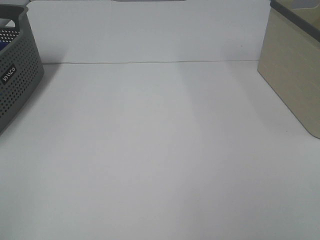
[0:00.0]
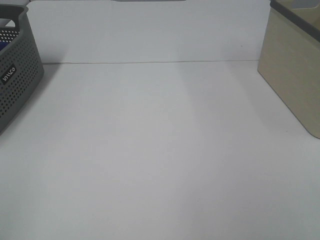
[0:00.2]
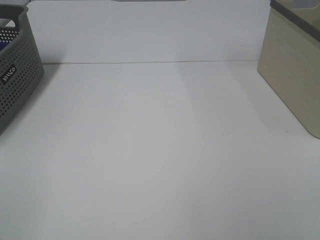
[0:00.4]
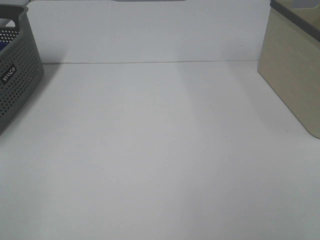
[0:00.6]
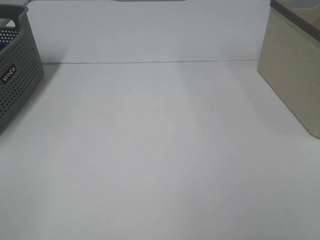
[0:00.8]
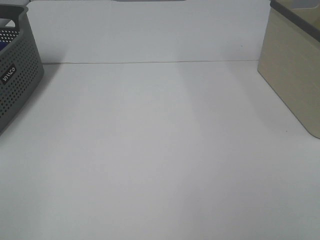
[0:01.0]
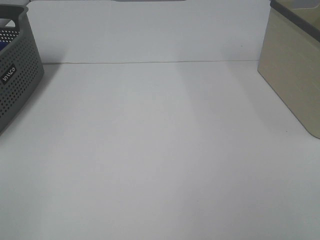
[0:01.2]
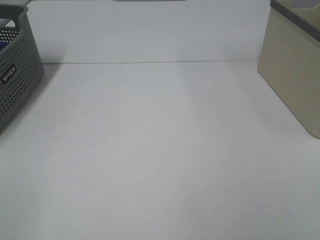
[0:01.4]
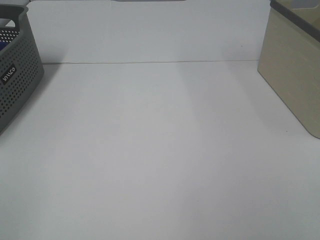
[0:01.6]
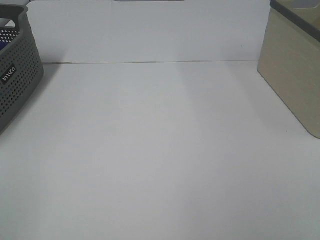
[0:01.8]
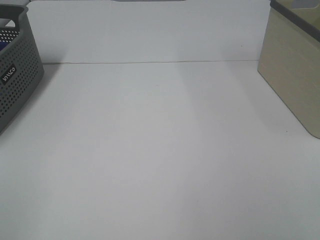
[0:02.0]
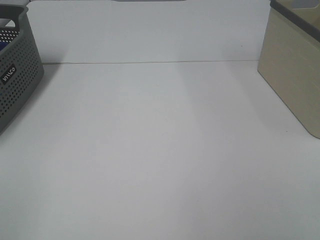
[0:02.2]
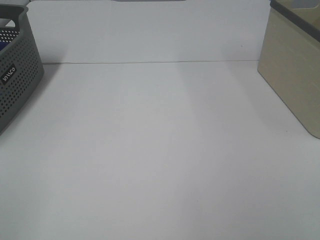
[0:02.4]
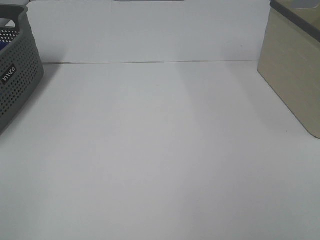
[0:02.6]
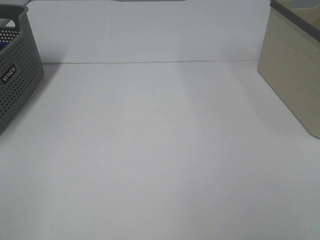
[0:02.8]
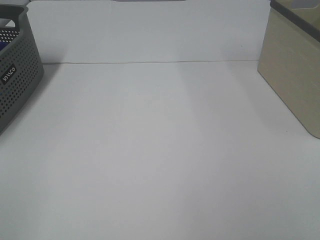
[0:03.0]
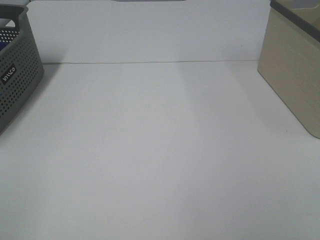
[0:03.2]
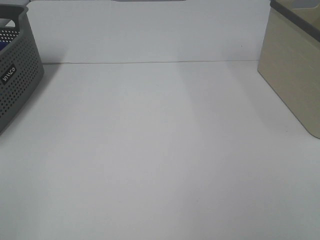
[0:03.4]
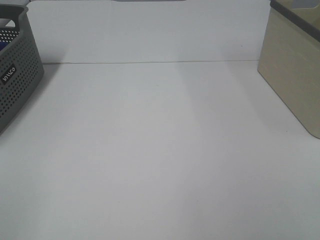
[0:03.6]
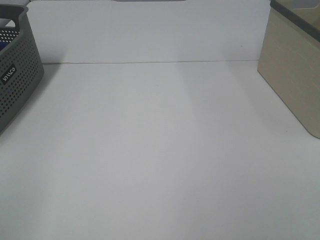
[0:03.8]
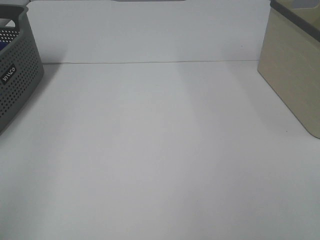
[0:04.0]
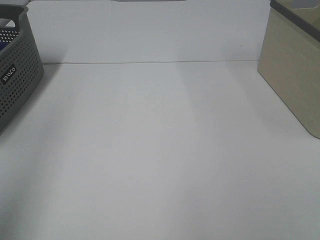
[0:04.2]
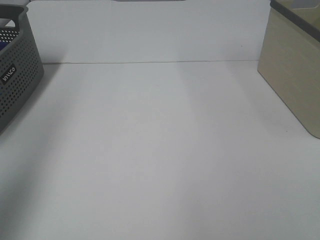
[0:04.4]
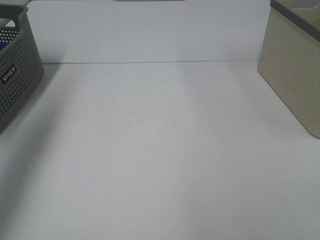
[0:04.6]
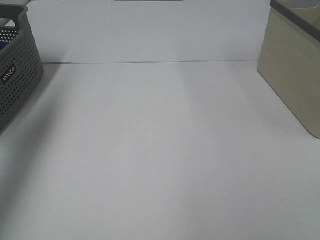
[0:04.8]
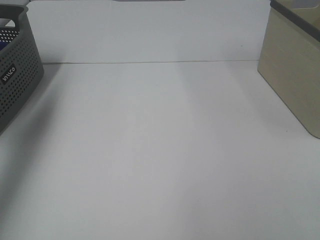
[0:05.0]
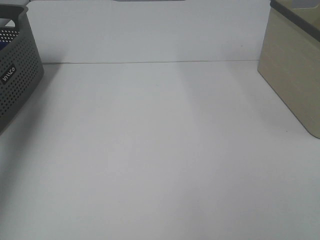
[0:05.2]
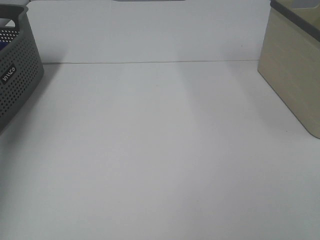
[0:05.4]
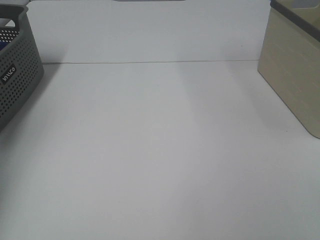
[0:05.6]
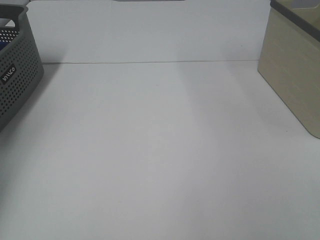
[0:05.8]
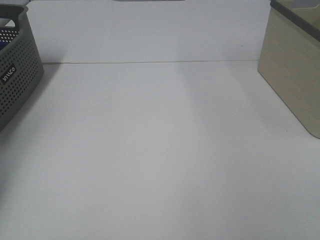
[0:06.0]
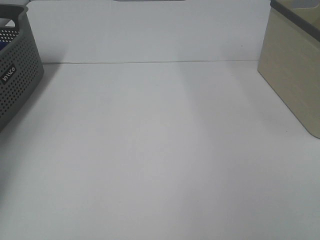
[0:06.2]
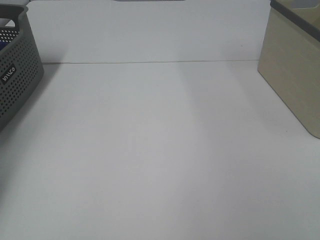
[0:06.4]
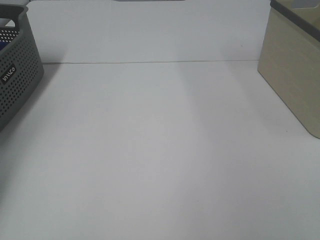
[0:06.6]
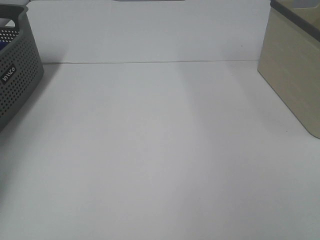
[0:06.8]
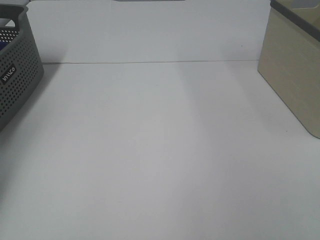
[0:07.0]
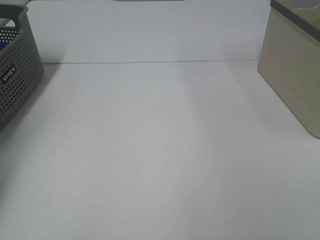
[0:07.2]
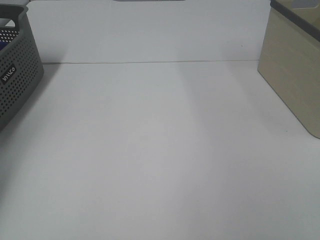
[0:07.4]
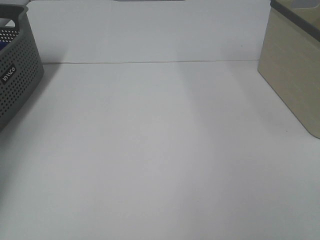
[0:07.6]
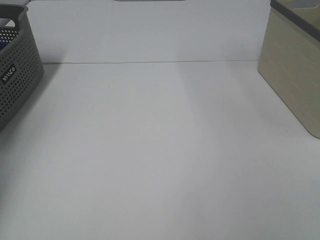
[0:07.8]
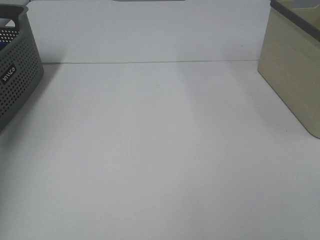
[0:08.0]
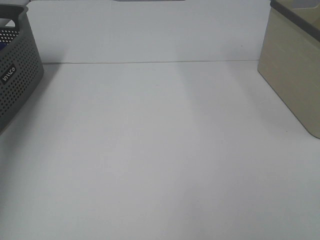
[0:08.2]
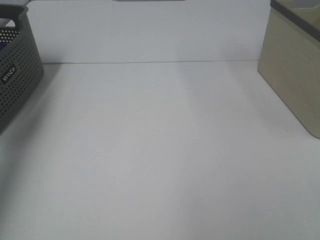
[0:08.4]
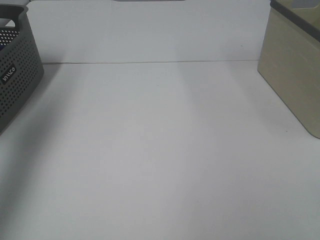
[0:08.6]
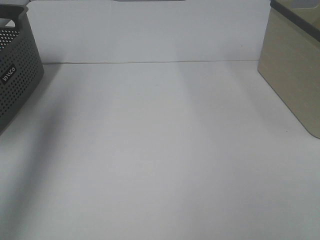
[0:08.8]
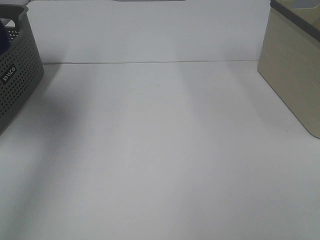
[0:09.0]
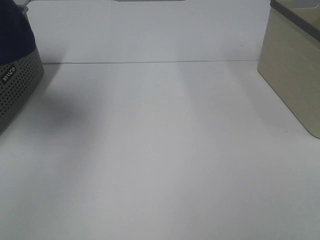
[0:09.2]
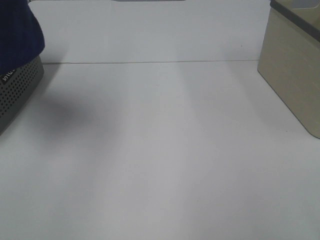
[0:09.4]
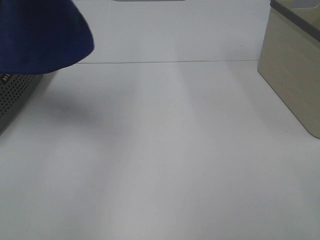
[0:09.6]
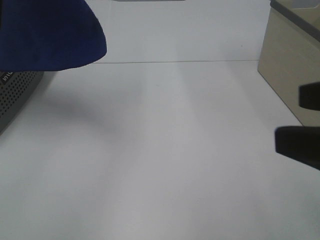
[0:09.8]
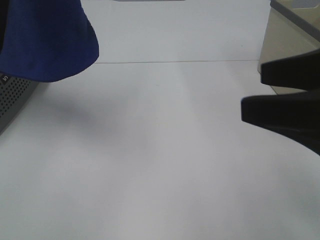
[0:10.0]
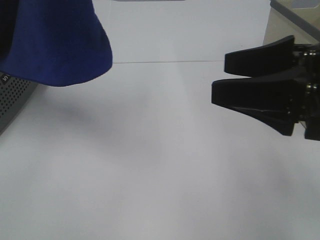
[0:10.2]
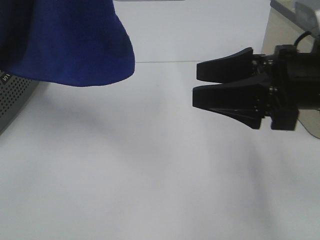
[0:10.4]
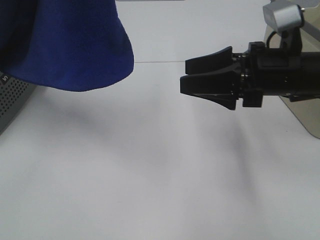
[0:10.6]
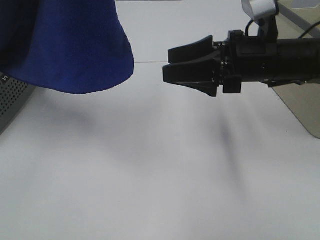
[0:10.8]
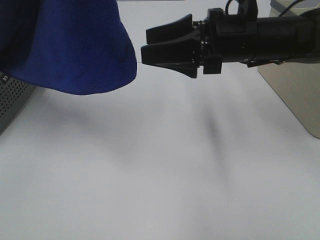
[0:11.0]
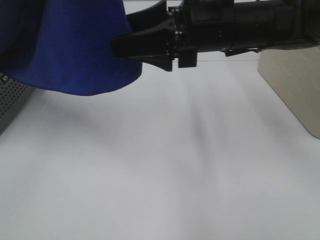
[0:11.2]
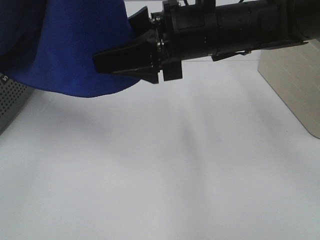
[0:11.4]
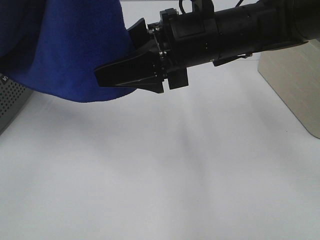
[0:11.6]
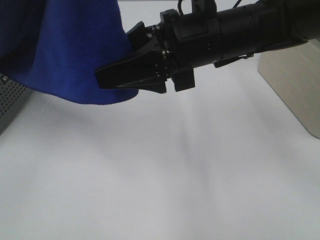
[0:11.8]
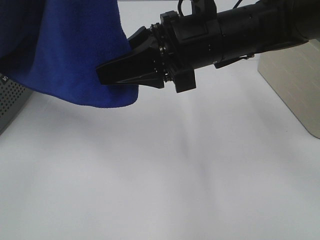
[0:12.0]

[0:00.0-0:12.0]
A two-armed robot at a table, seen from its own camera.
Task of the whole recording: Remove the towel and place it.
0:01.6 to 0:03.0: Both grippers stay put.
0:03.0 to 0:04.4: The left gripper travels forward and upward by approximately 25 cm.
0:04.4 to 0:06.0: The left gripper goes some 35 cm forward, downward and to the left.
0:07.6 to 0:09.0: The left gripper shifts some 40 cm upward, backward and to the right.
0:09.0 to 0:10.4: The left gripper travels to the right and backward by some 15 cm; the right gripper is displaced forward by about 25 cm.
0:10.4 to 0:12.0: The right gripper moves to the left and forward, about 15 cm, and closes its fingers.

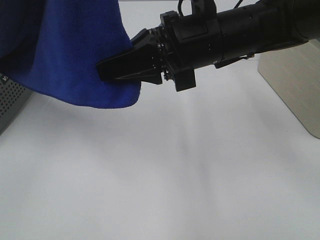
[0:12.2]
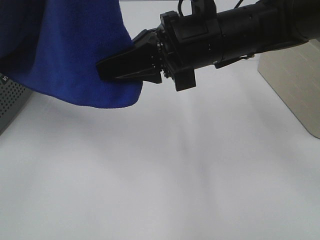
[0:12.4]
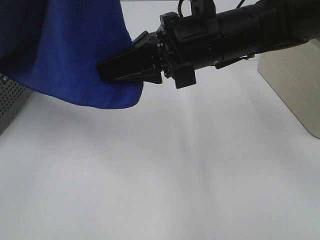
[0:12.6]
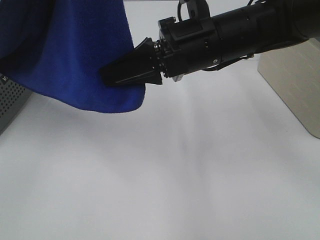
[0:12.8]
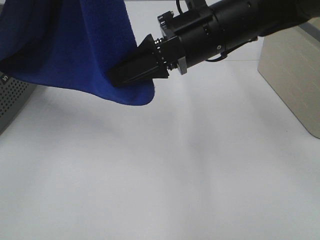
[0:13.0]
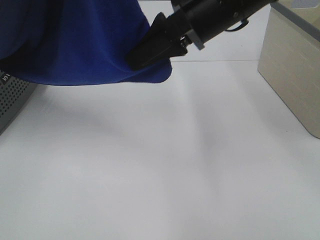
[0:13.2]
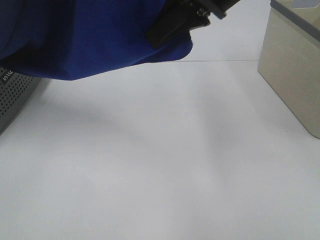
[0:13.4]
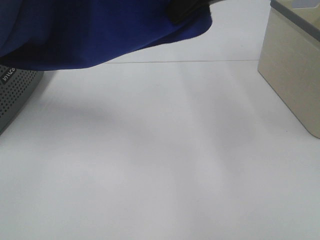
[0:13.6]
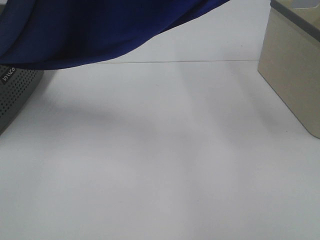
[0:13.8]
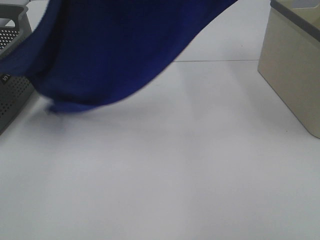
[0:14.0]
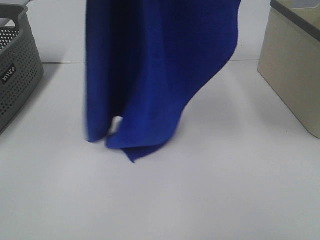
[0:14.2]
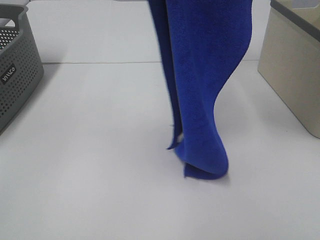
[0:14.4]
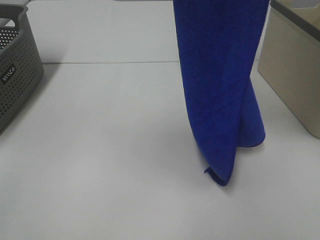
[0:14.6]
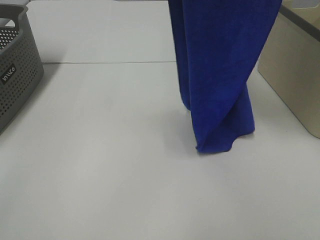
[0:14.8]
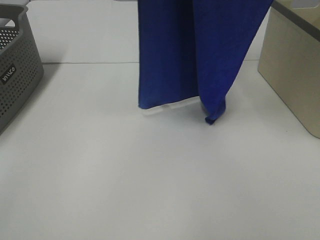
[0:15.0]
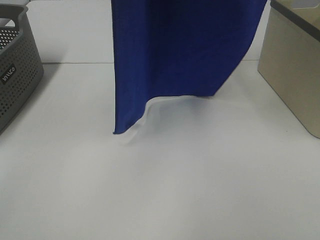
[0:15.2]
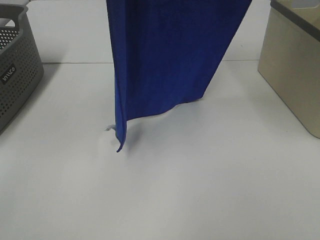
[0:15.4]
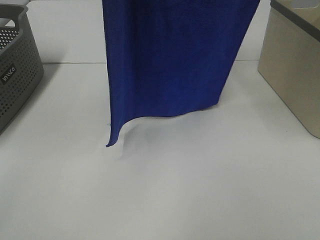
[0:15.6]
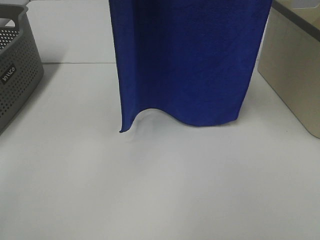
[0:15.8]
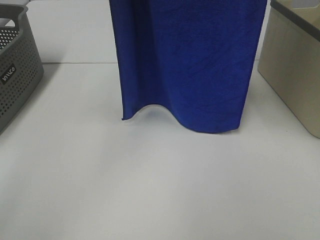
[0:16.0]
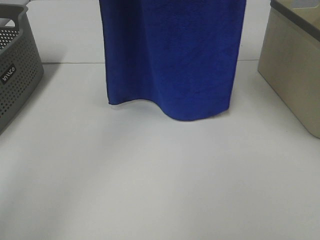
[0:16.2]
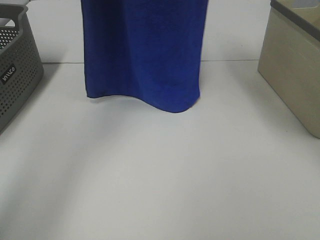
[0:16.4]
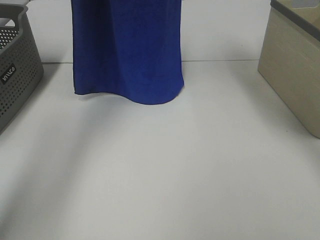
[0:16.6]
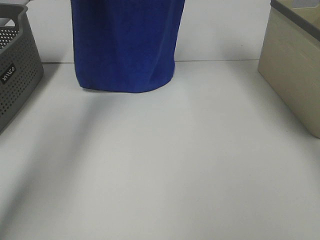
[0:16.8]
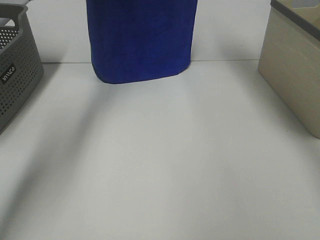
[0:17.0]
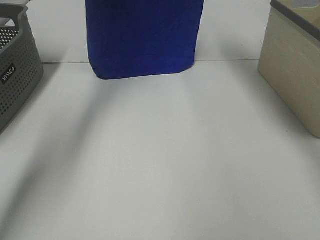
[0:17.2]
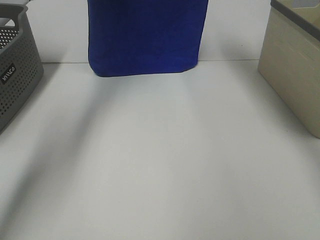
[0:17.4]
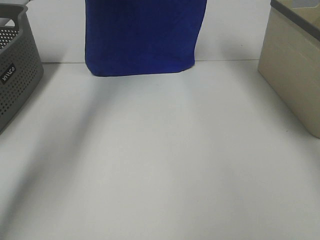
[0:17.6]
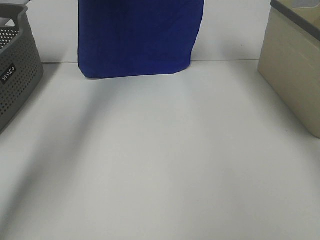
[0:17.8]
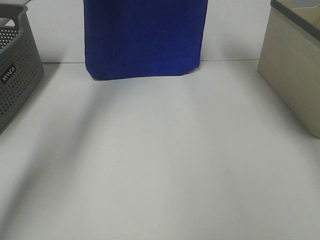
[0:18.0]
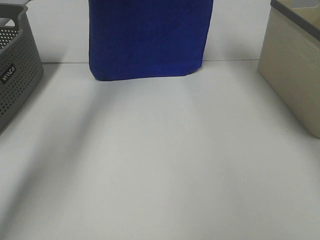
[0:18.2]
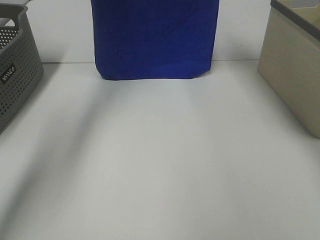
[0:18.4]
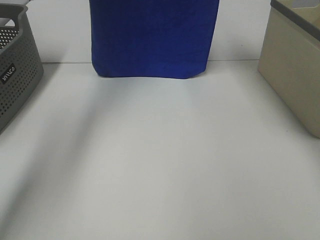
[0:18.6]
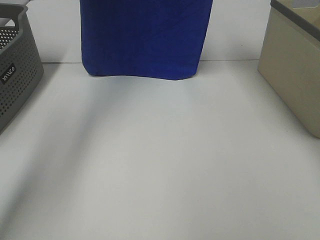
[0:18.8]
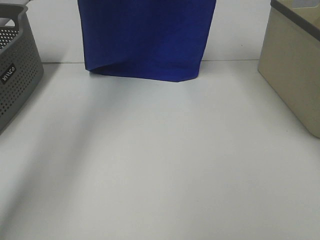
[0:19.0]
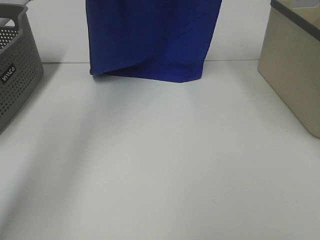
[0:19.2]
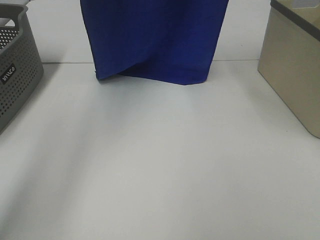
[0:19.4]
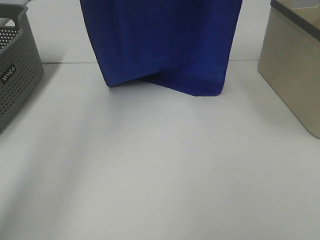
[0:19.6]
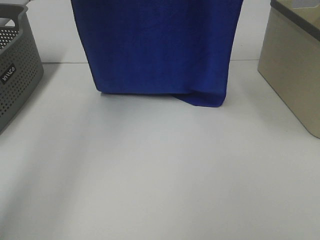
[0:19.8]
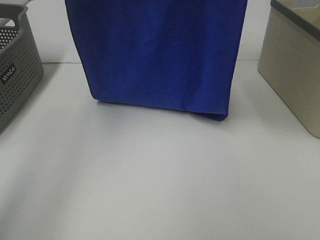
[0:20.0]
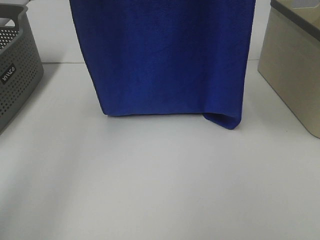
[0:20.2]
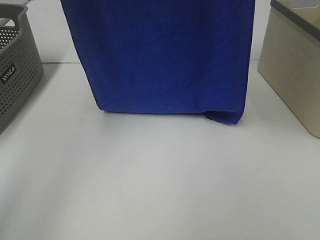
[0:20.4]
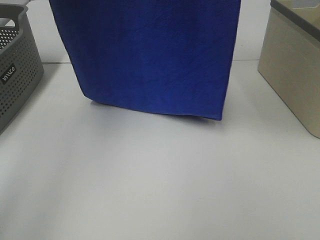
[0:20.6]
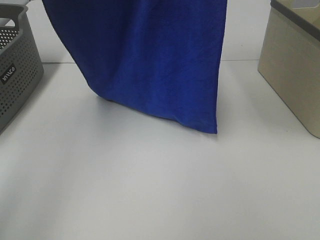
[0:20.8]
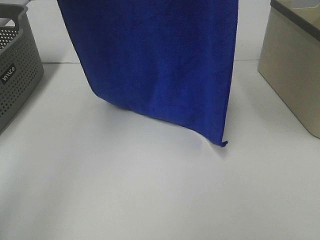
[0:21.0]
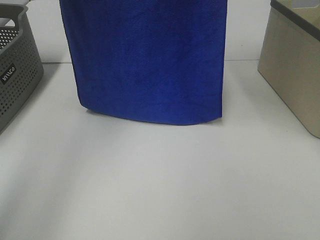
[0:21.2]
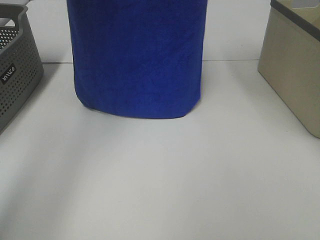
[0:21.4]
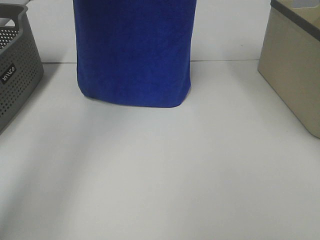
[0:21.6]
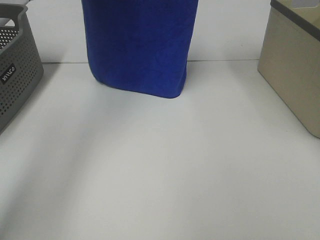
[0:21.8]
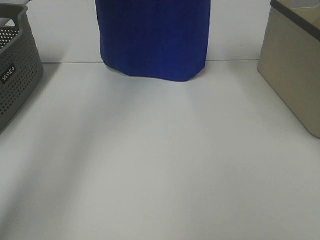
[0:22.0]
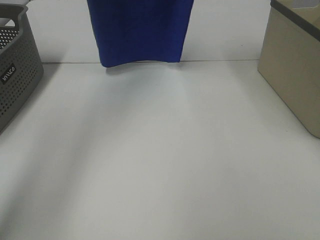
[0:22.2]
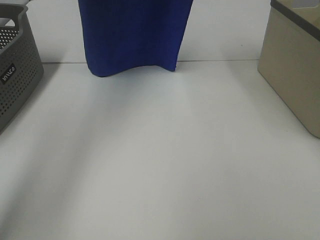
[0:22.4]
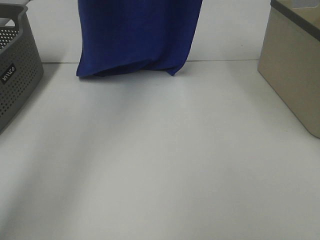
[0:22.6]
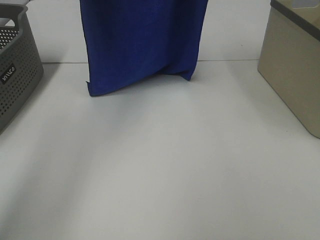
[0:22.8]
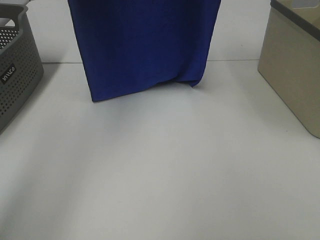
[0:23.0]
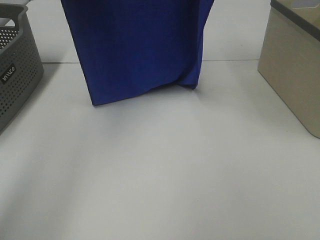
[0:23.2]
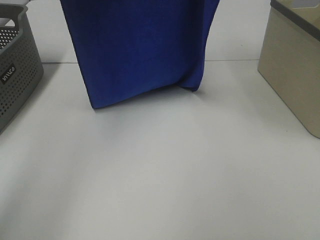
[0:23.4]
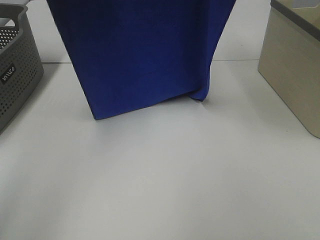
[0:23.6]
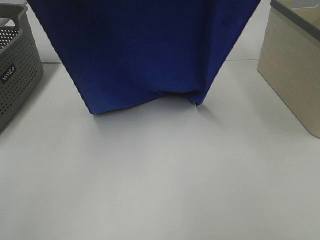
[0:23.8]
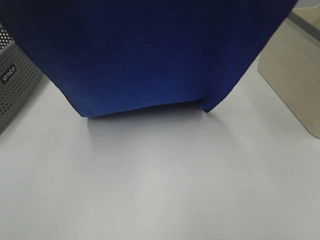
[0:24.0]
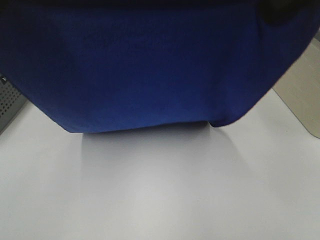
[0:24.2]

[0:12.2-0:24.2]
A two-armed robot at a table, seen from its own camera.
Task of the whole recording: Remove the towel and place it.
Step, 0:13.0 to 0:22.0: Left hand: spread the blue towel flat on the table.
Step, 0:13.0 to 0:22.0: Right hand: spread the blue towel flat on the table.
0:12.2 to 0:13.8: The right gripper heads upward, covering approximately 15 cm.
0:13.8 to 0:15.2: The left gripper heads forward, covering approximately 10 cm; the right gripper shifts about 10 cm upward and to the right.
0:15.2 to 0:16.6: The left gripper shifts about 20 cm forward and downward. The right gripper moves forward, to the left and downward, about 15 cm.
0:16.6 to 0:18.2: The grippers move only a little.
0:18.2 to 0:19.8: Both grippers move backward and upward, about 15 cm.
0:19.8 to 0:21.2: The right gripper shifts roughly 5 cm forward.
0:21.2 to 0:22.6: The left gripper shifts approximately 5 cm forward.
0:22.6 to 0:24.2: The two grippers go about 25 cm backward.
